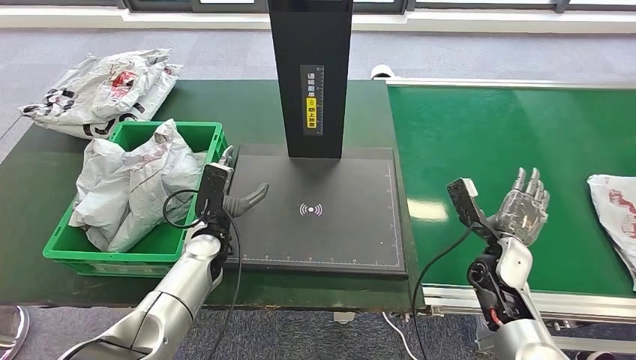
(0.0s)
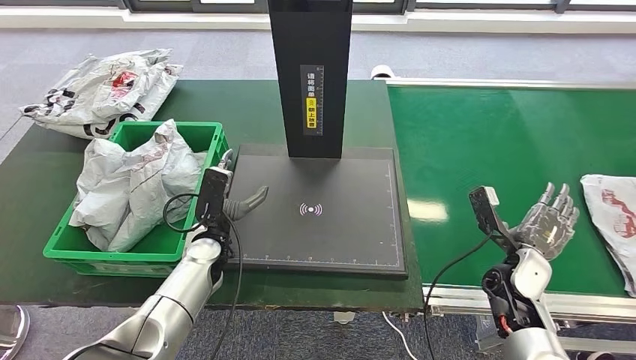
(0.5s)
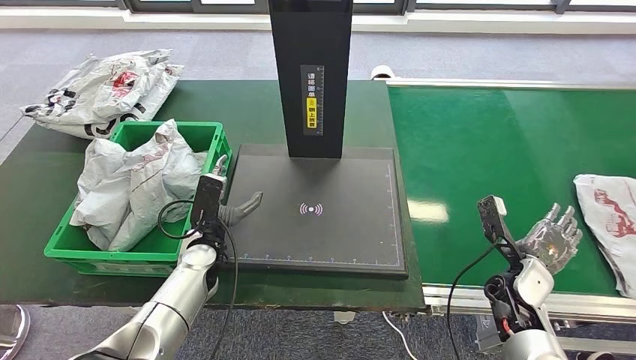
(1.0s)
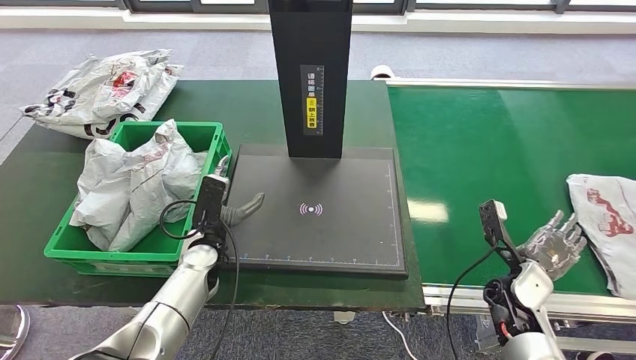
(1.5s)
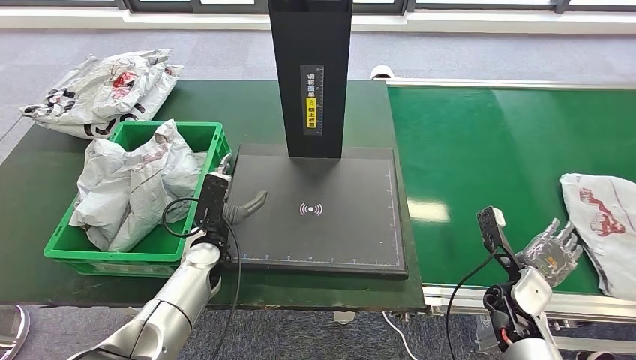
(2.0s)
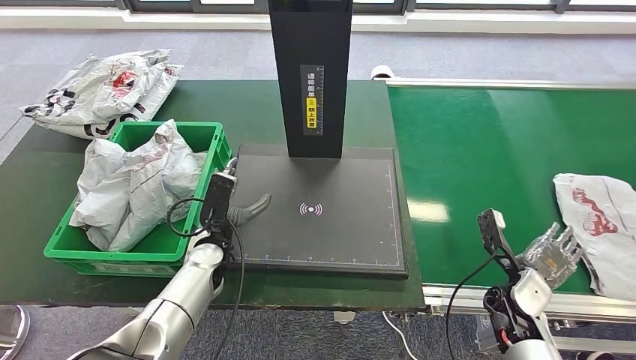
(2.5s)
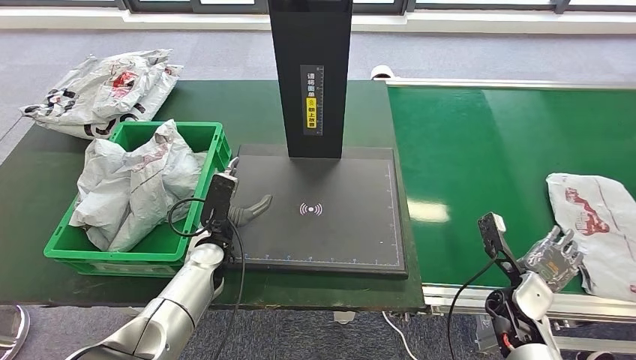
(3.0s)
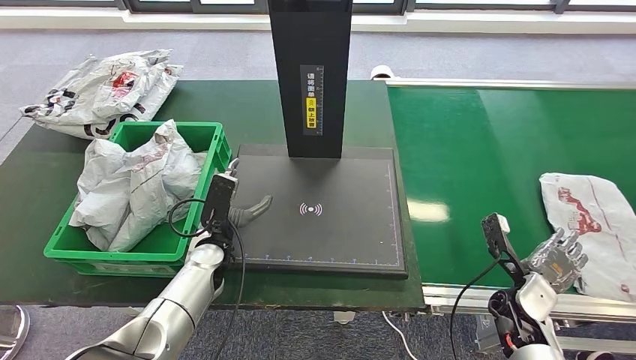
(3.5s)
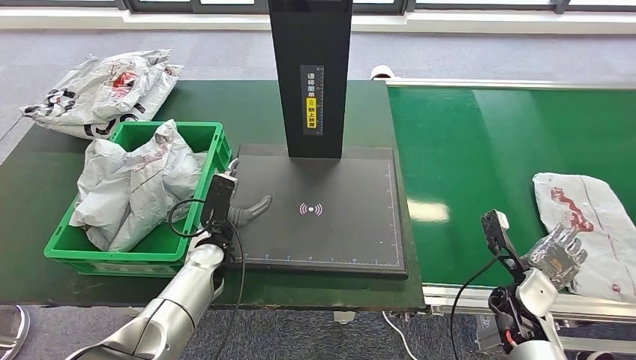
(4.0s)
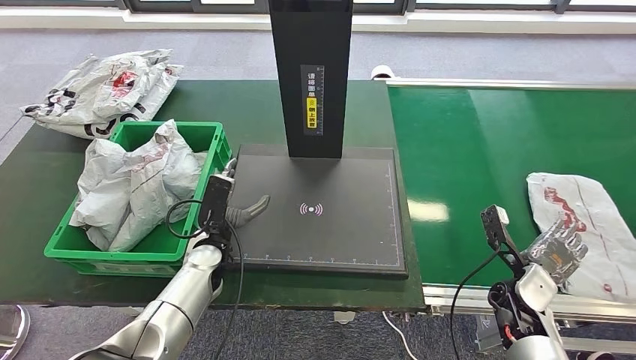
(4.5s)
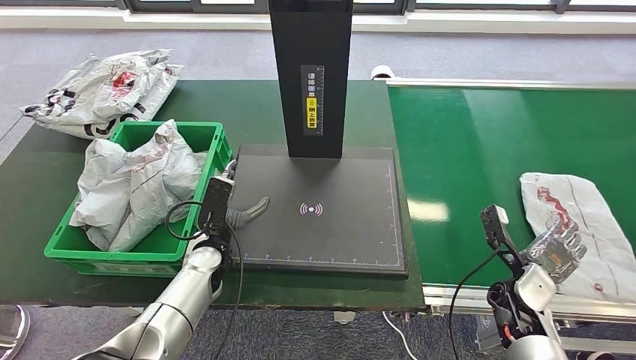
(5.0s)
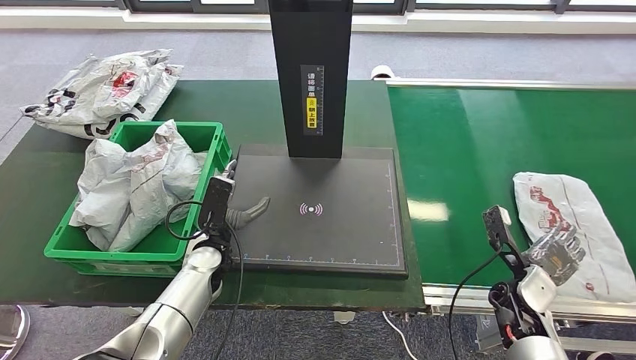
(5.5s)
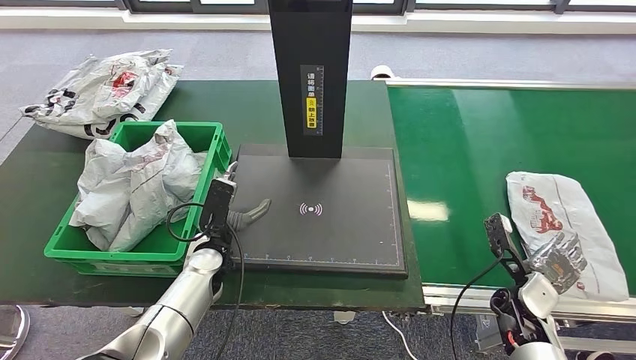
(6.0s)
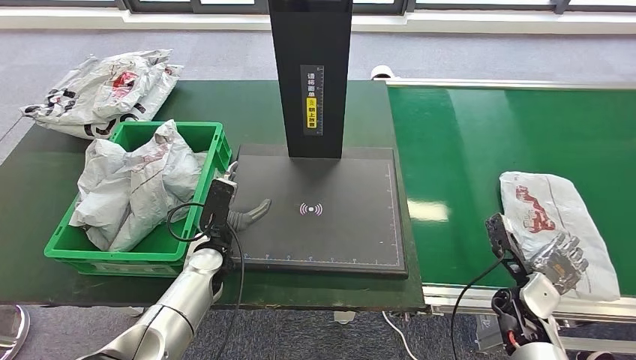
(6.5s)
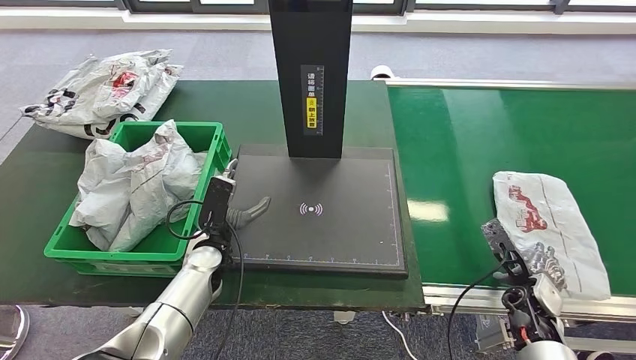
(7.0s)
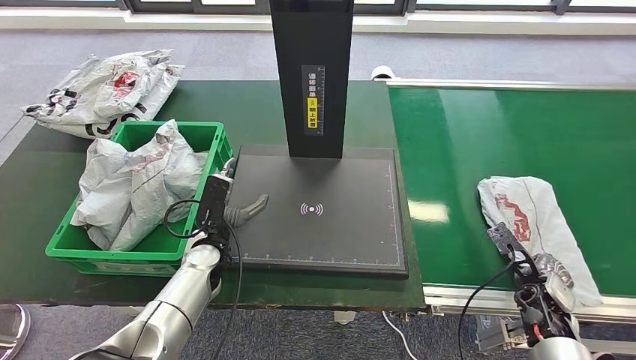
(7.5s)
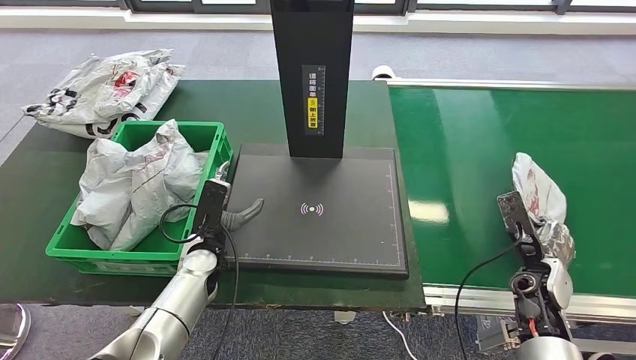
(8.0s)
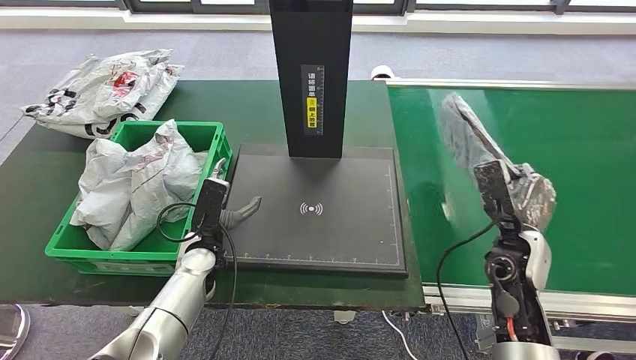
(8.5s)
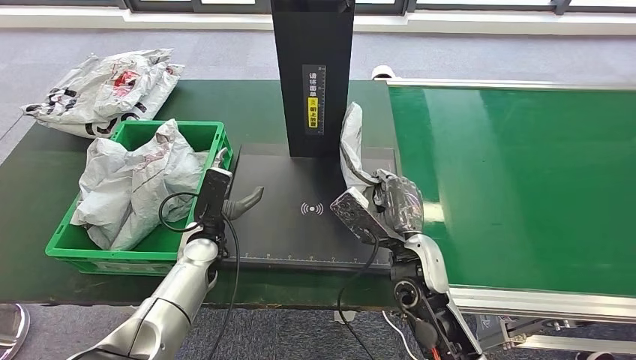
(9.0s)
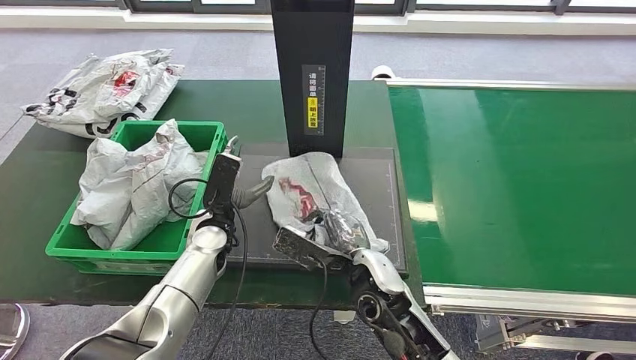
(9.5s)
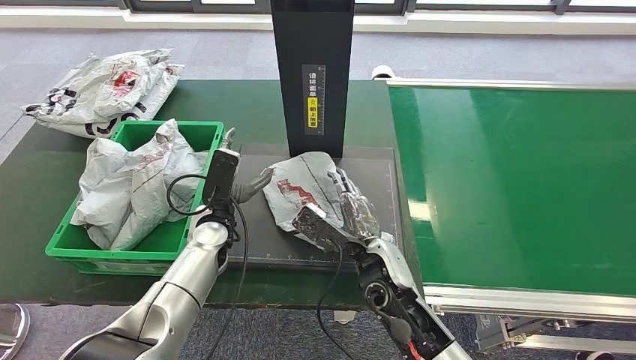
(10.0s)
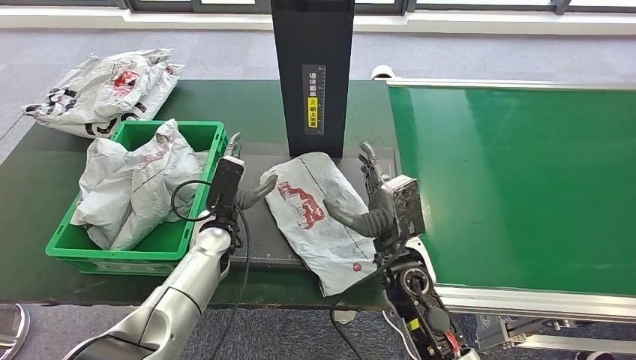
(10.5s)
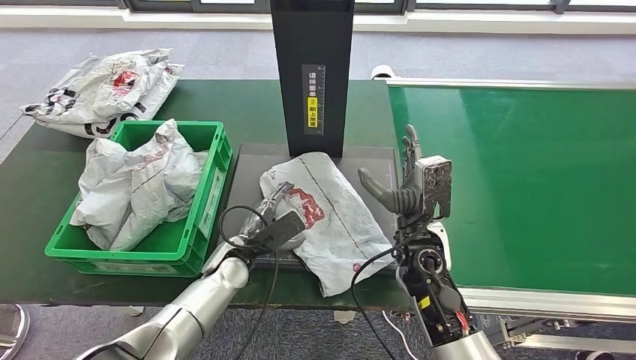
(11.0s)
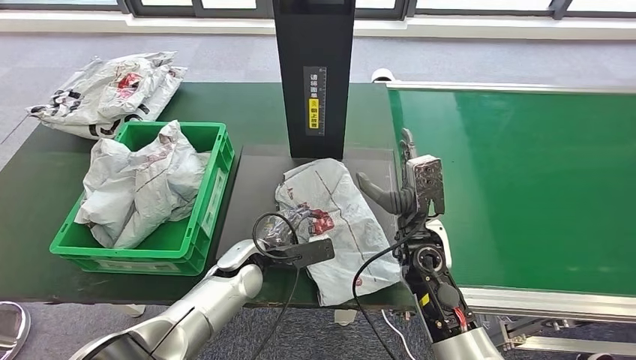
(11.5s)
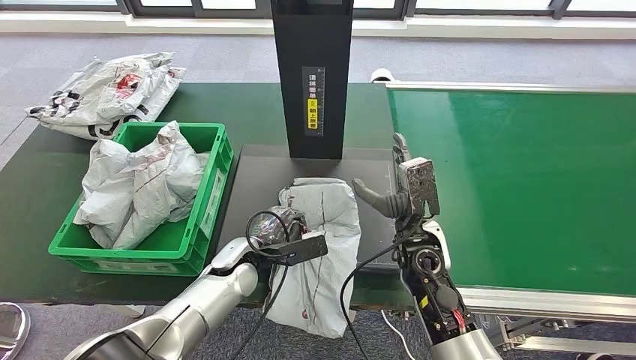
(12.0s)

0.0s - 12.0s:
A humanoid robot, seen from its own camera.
Step, 5.5s - 8.5s: Pick up the parcel from the conveyor belt.
Step, 9.0s - 11.0s: Place the parcel onto the inbound machine.
0.0s - 2.0s: The right hand ends up roughly 5 cm from where it was.
2.0s - 4.0s: The two hands keep their place.
4.0s - 6.0s: Neither hand changes place.
8.0s - 10.0s: The right hand goes approximately 30 cm to the left. The left hand travels upward by some 5 cm.

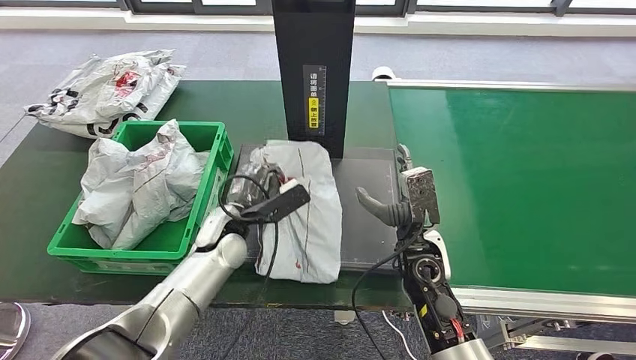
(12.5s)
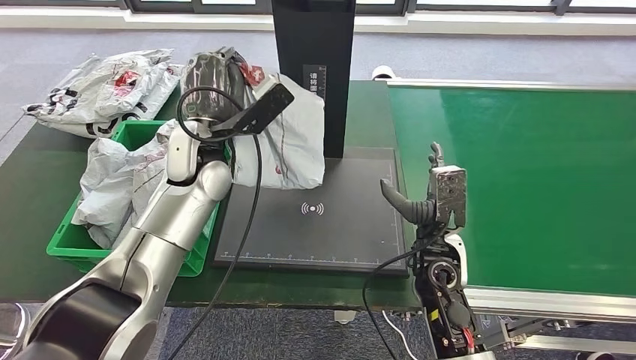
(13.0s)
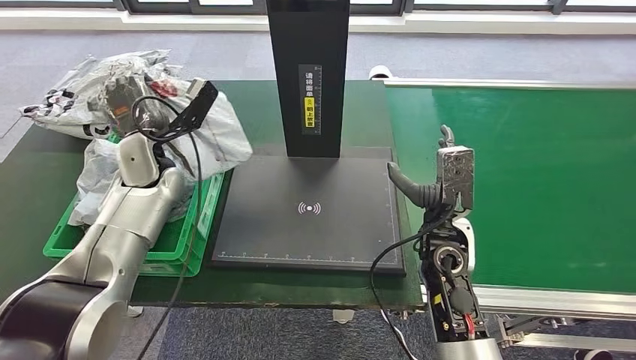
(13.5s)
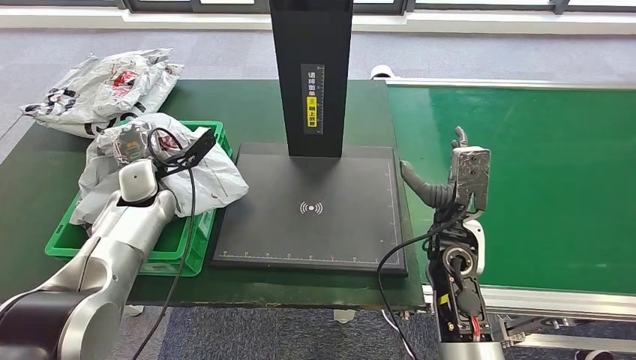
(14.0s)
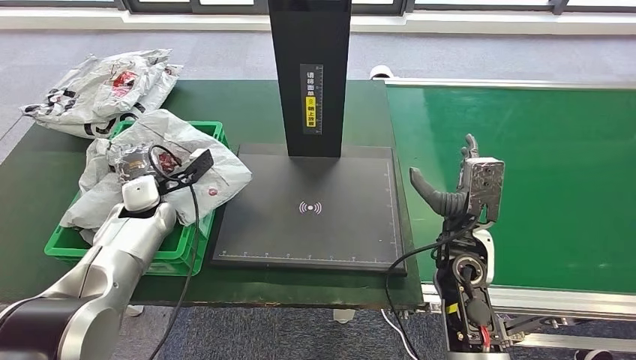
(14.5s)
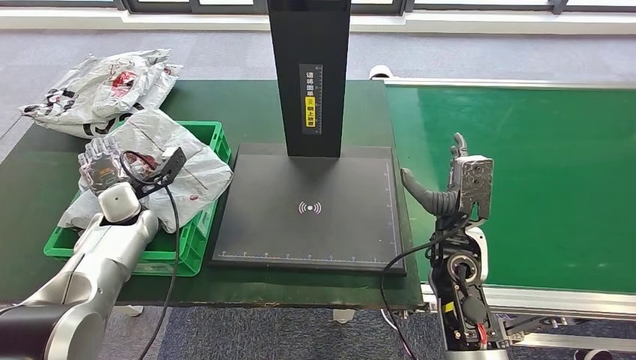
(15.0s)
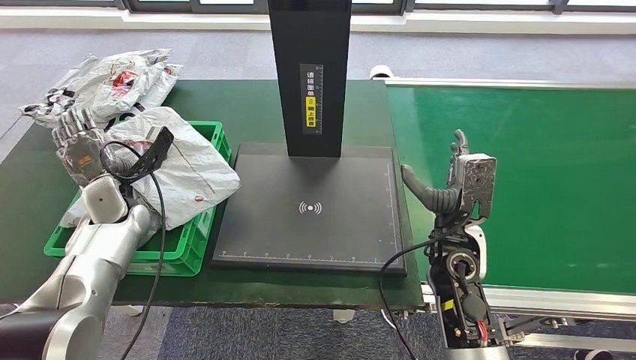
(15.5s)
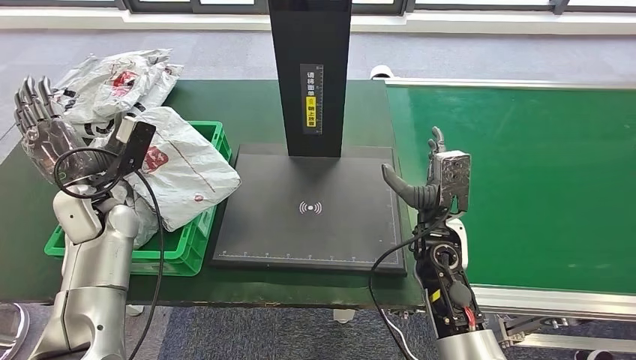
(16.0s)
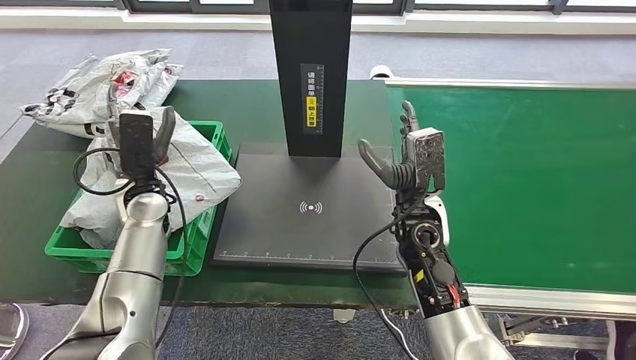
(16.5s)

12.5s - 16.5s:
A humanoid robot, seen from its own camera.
Step, 14.0s - 16.5s: Place the parcel into the delivery box.
14.5s - 16.5s: The left hand ends up approximately 5 cm from where it was; the right hand moves to the left, some 5 cm.
